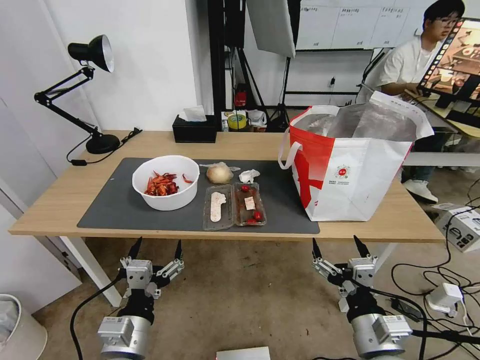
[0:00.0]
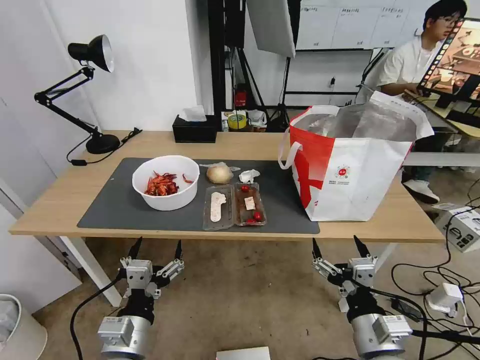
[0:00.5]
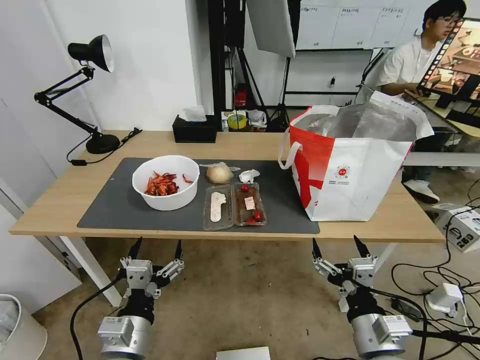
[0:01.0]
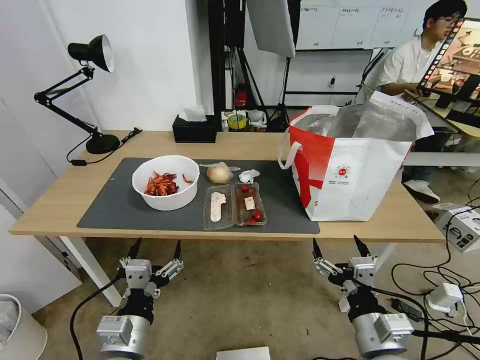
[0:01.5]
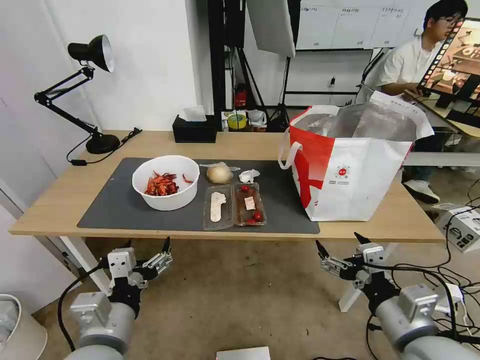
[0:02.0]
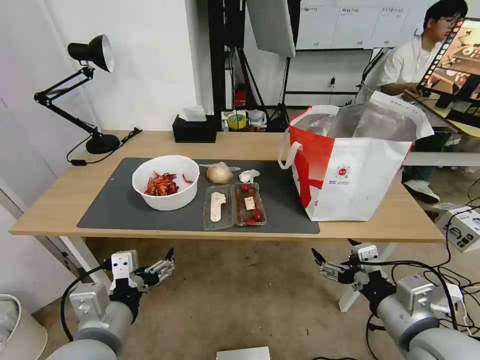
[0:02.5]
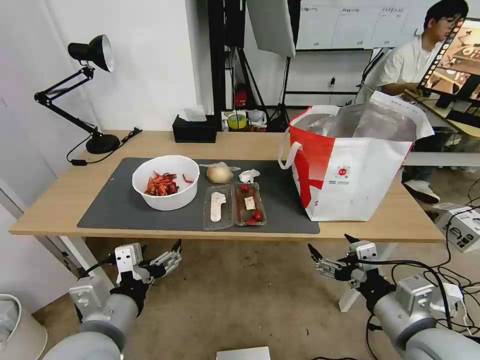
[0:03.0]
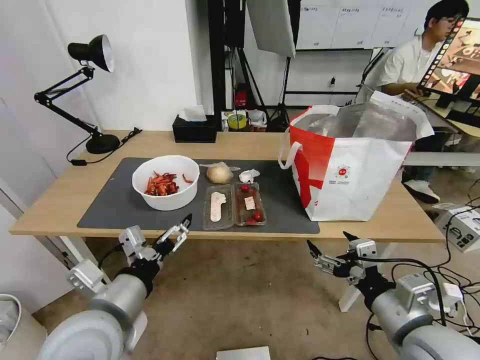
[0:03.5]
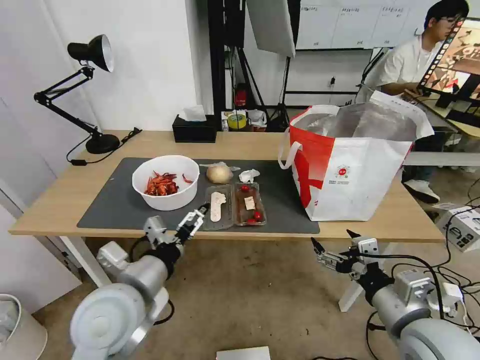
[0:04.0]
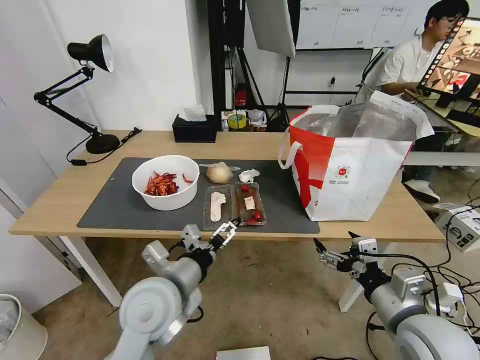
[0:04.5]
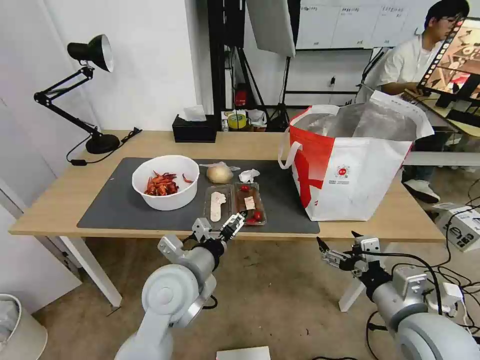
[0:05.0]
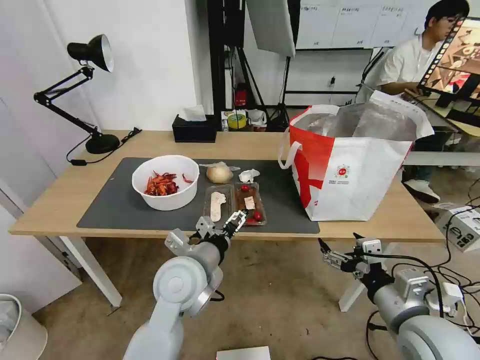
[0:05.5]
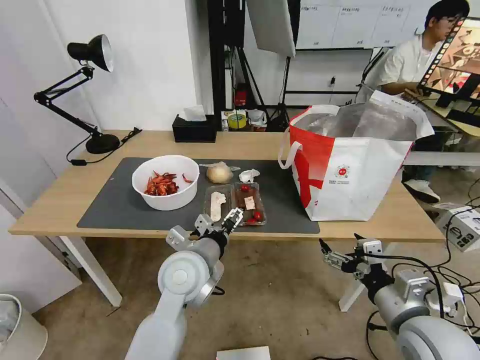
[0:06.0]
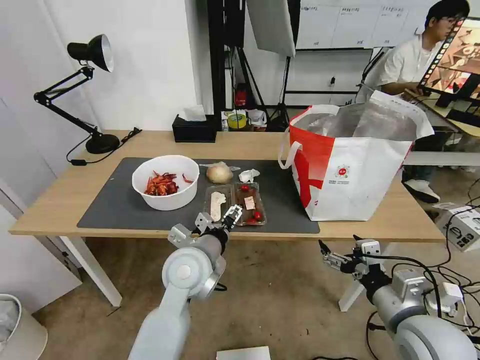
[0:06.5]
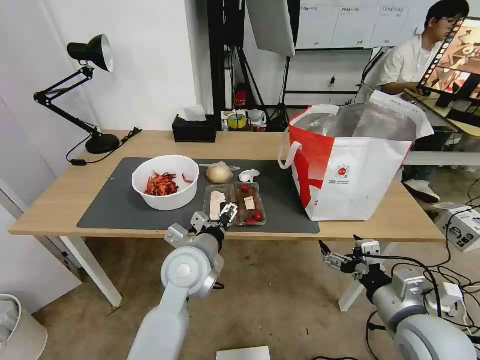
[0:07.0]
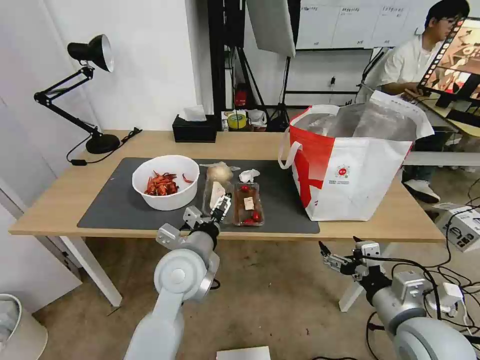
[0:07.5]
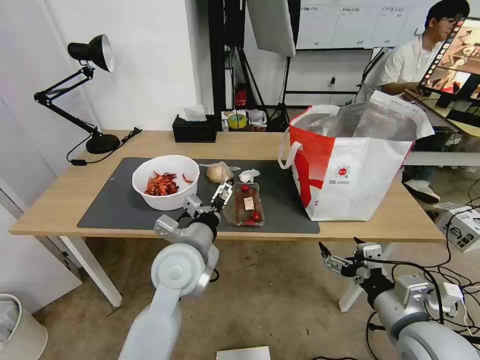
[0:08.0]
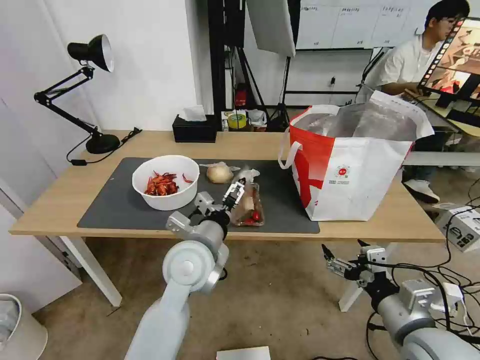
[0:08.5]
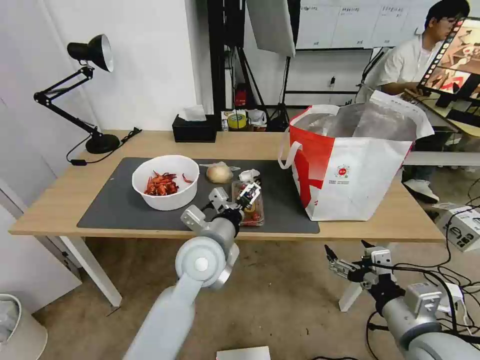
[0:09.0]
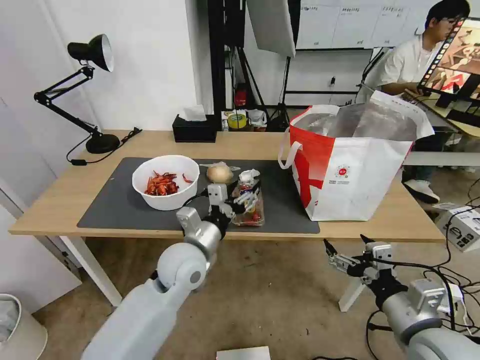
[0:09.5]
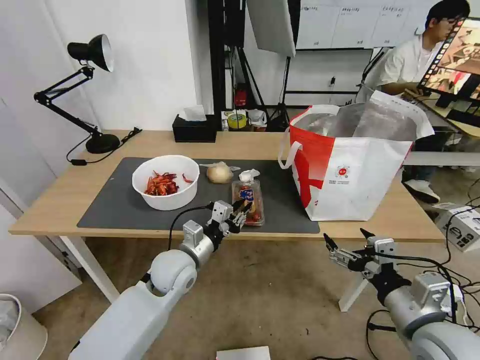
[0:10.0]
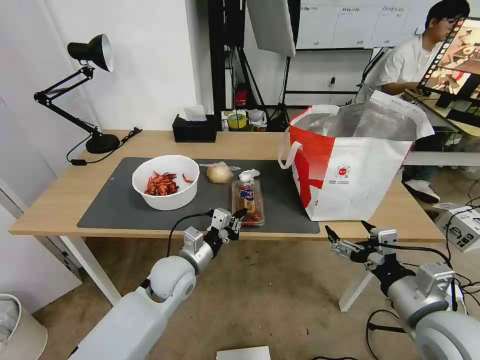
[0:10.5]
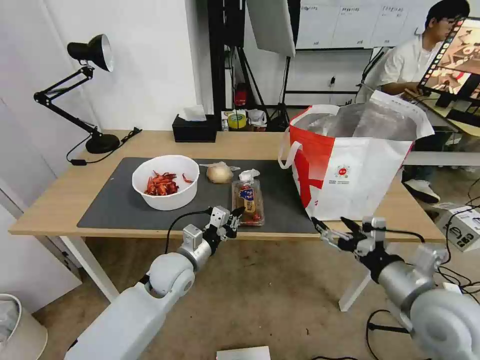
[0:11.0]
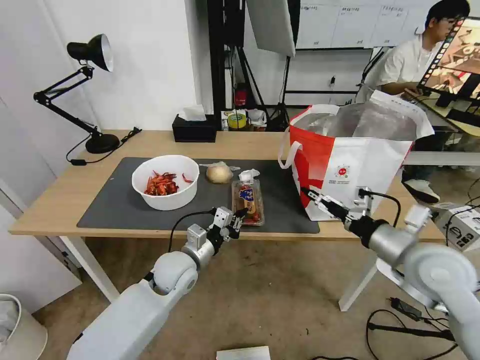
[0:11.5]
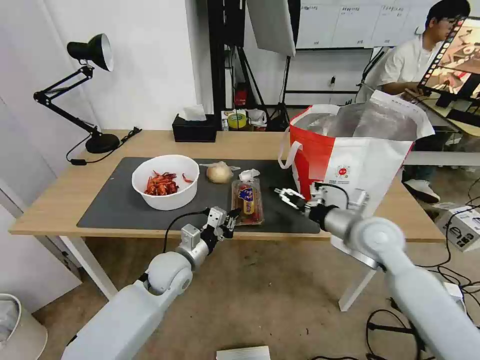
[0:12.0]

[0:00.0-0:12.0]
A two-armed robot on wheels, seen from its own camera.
Task of the whole recording: Pick up the trash from the table and place it into the takeout bag.
0:02.0 to 0:04.0: The left gripper moves forward, some 5 cm.
0:04.0 to 0:06.0: The left gripper is displaced to the right and forward by about 15 cm.
0:06.0 to 0:08.0: The grippers stay close to where they were, moving slightly.
0:08.0 to 0:10.0: The left gripper heads downward, covering about 10 cm, and closes.
0:10.0 to 0:12.0: The right gripper goes some 20 cm forward.

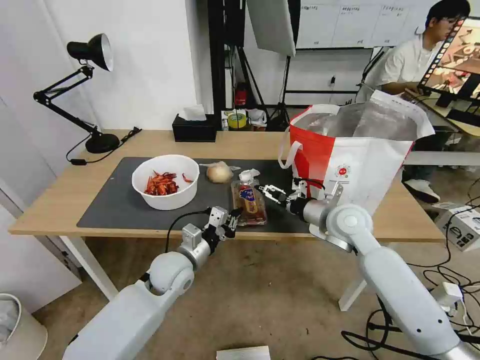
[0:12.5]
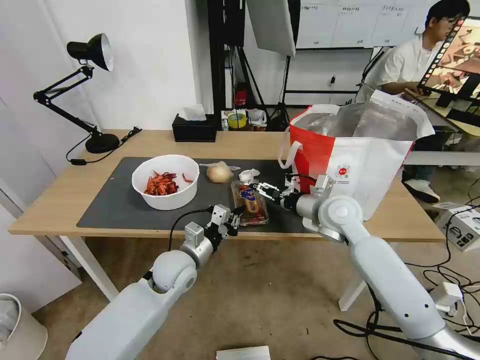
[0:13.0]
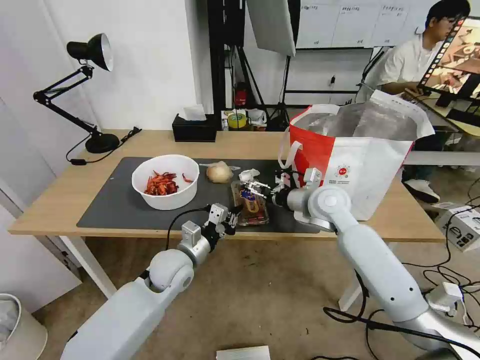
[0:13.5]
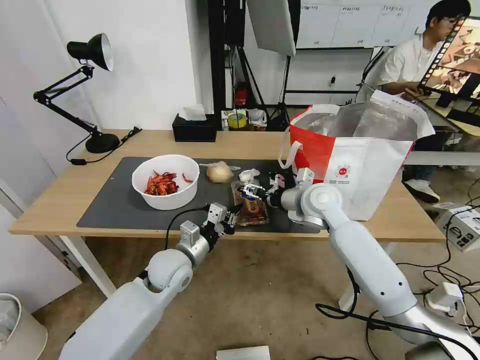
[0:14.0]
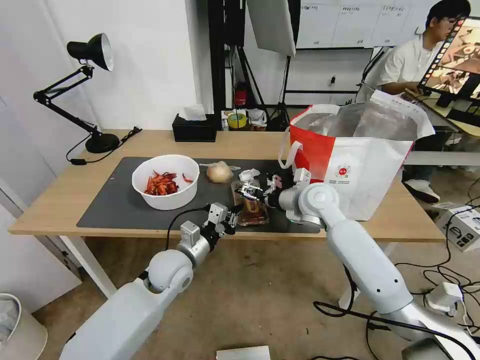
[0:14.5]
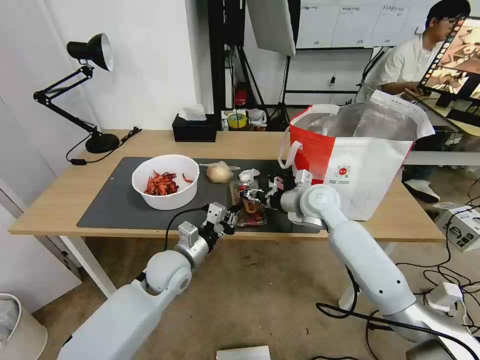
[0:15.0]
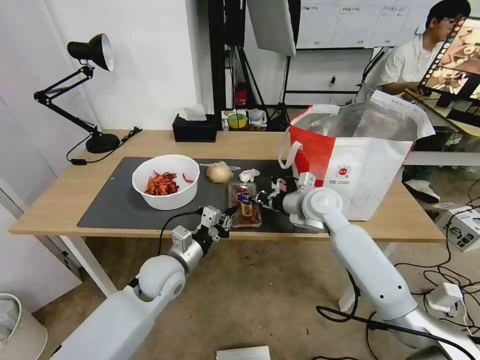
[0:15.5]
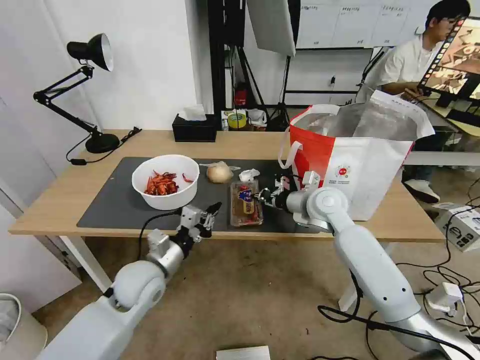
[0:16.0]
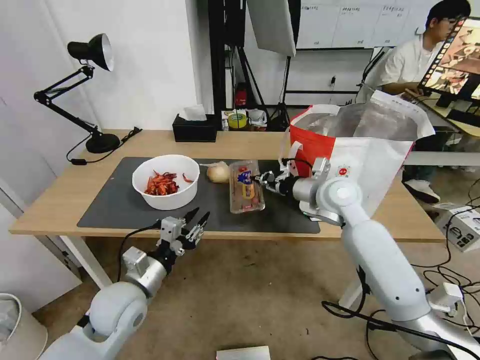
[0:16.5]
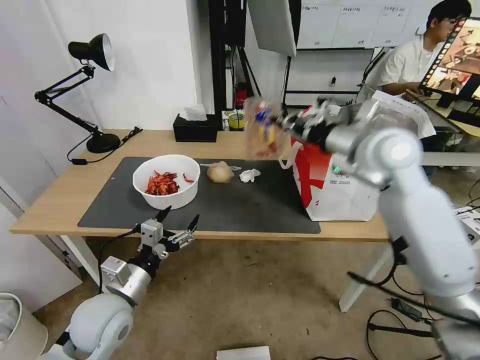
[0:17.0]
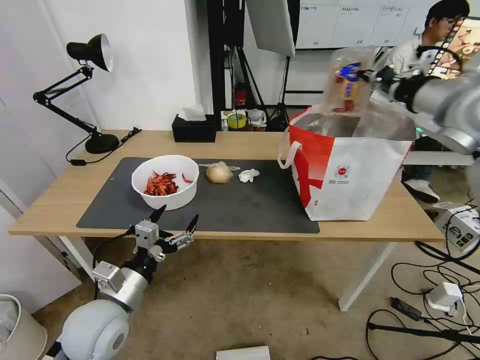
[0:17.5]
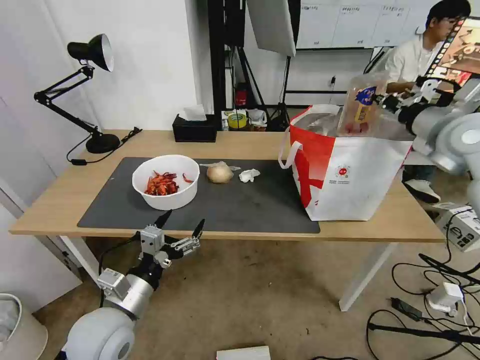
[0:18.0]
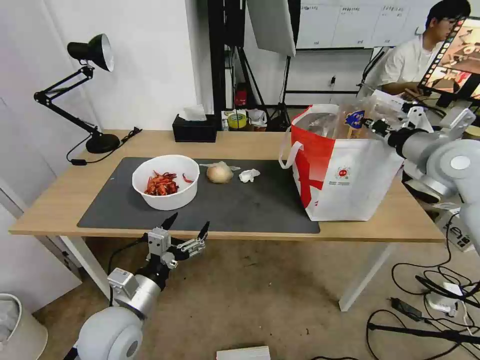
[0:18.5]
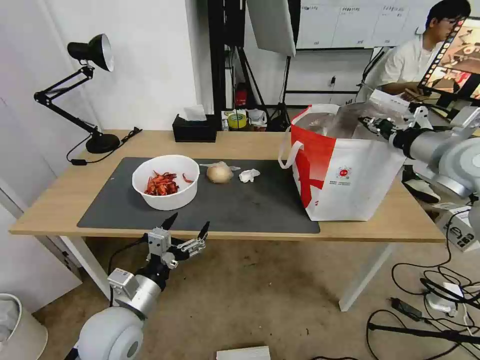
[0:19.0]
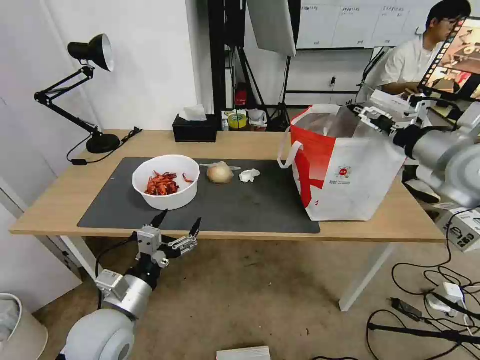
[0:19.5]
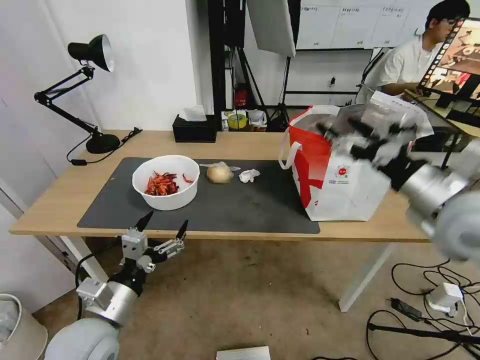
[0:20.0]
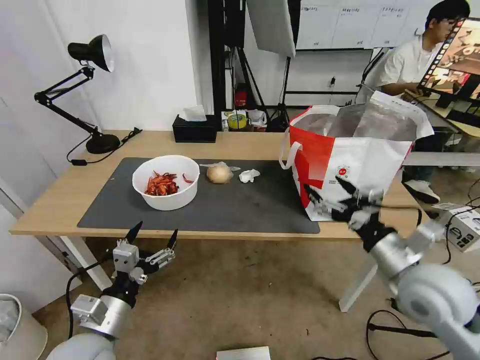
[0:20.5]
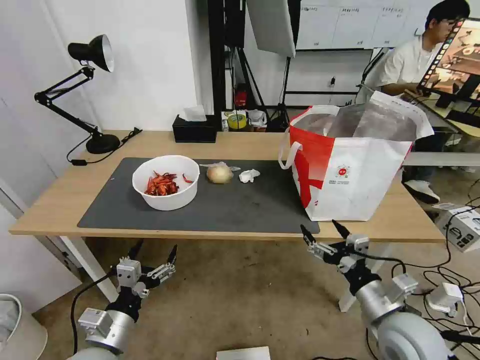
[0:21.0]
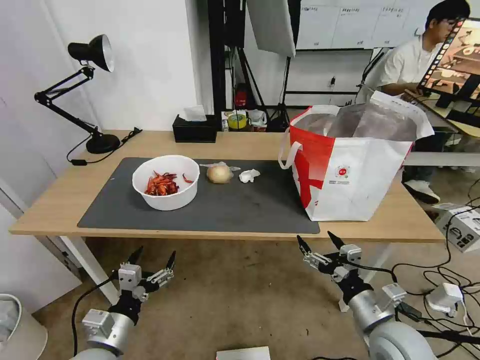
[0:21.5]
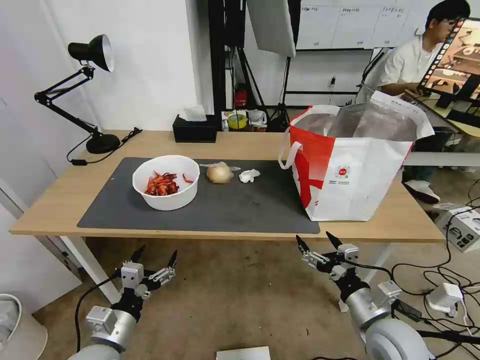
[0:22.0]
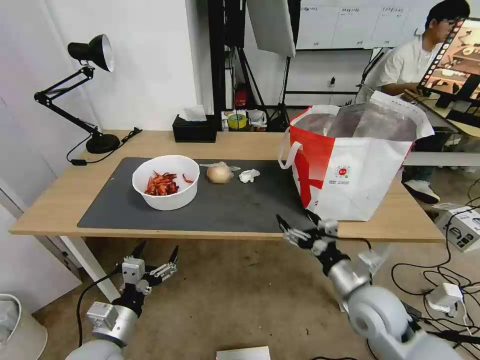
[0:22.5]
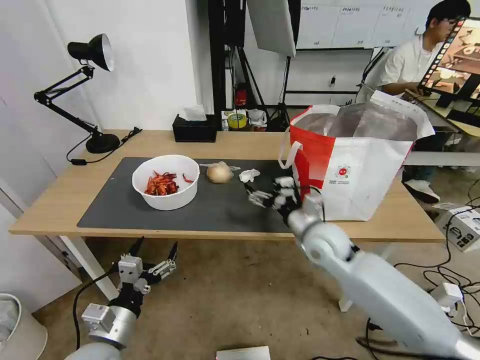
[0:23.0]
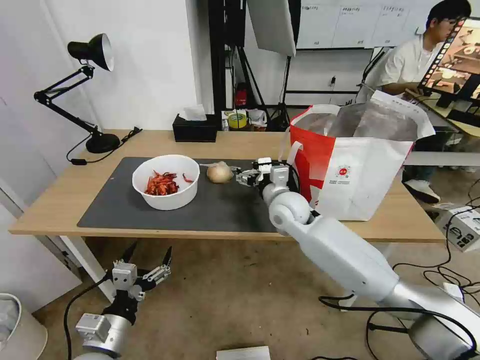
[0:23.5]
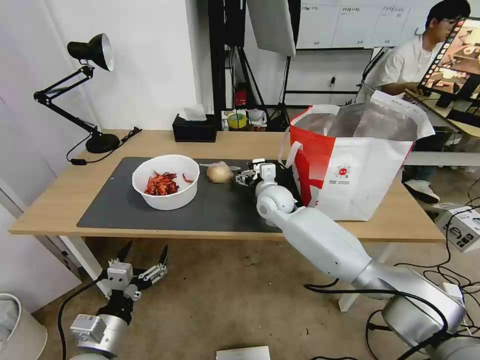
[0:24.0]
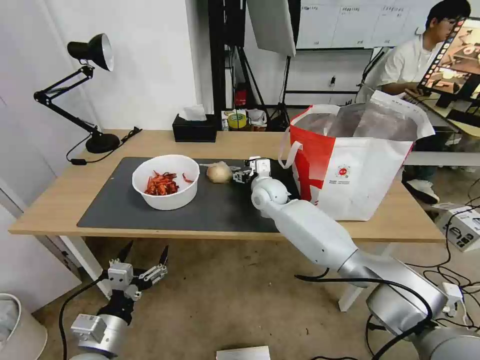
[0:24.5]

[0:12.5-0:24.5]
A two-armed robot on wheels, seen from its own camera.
Task of the whole recording: Pick up the trash from the table and place it into the takeout bag.
0:12.5 to 0:14.5: The right gripper moves forward and to the left, roughly 10 cm.
0:14.5 to 0:16.5: The right gripper closes up, while the left gripper shifts roughly 10 cm backward and to the left, and opens up.
0:16.5 to 0:18.5: The left gripper moves backward, some 5 cm, and opens up. Meanwhile the right gripper shifts some 20 cm to the right and upward.
0:18.5 to 0:20.5: The right gripper goes some 25 cm backward, downward and to the left, and opens. The left gripper ends up approximately 5 cm from where it was.
0:20.5 to 0:22.5: The right gripper shifts about 10 cm downward and to the left. The left gripper heads downward, covering roughly 5 cm.
0:22.5 to 0:24.5: The right gripper moves forward and to the left, about 35 cm.

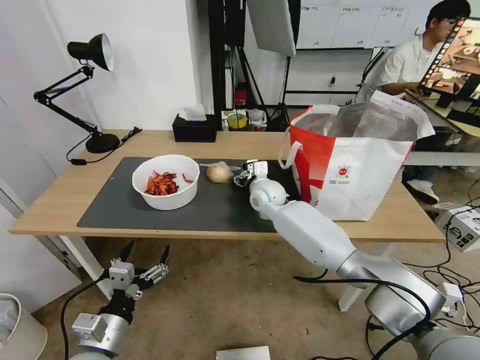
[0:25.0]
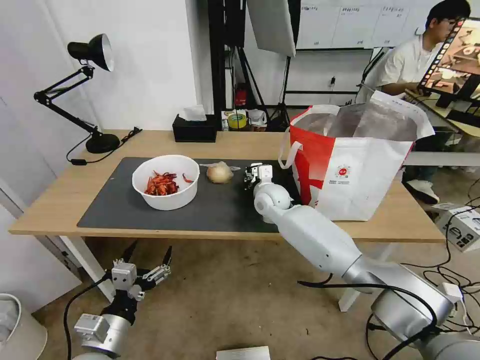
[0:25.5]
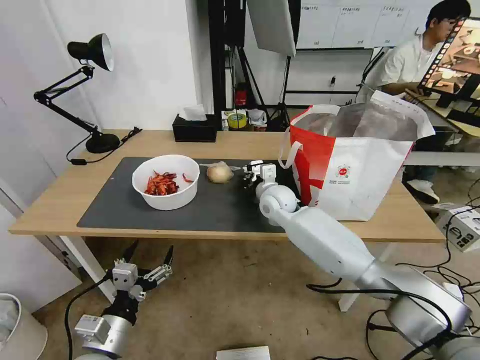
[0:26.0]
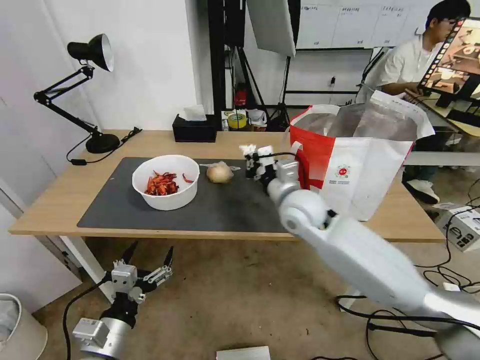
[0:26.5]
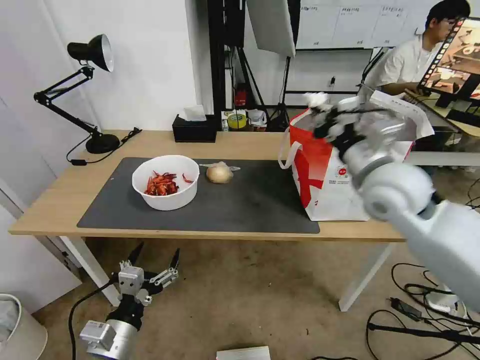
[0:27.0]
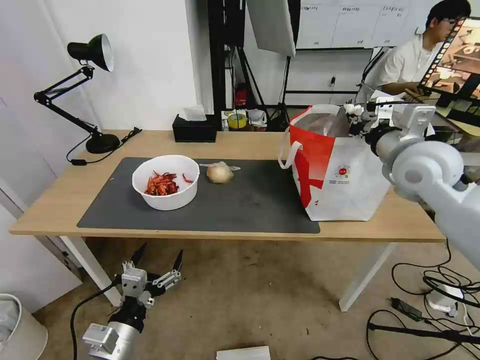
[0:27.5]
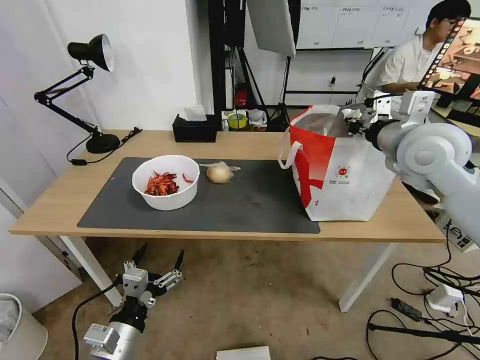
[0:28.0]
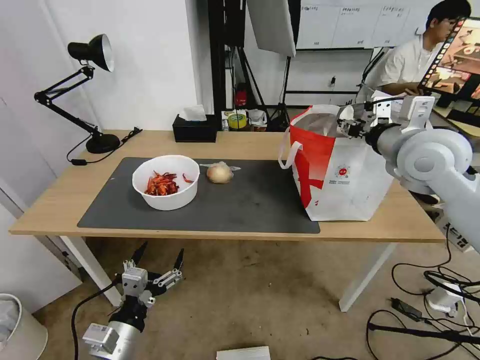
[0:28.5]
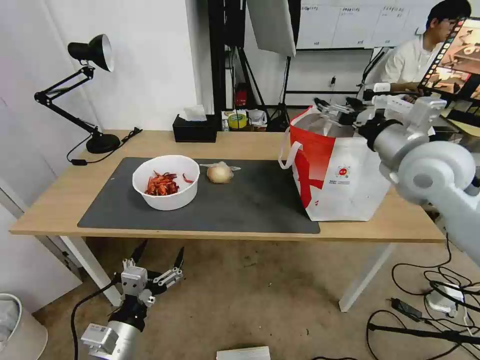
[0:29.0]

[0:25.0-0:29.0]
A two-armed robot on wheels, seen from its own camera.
Task of the whole recording: Pick up the trash from the table and place it into the takeout bag.
0:25.0 to 0:27.0: The right gripper is displaced upward, to the right and backward by approximately 30 cm, and closes up.
0:27.0 to 0:29.0: The right gripper is displaced to the right by approximately 5 cm, and opens its fingers.
